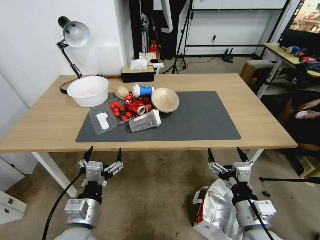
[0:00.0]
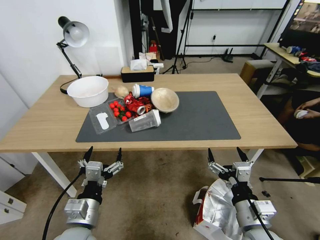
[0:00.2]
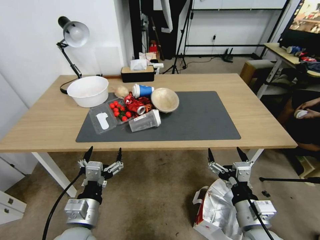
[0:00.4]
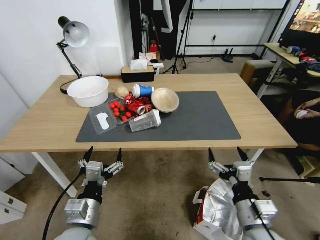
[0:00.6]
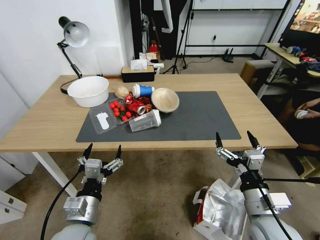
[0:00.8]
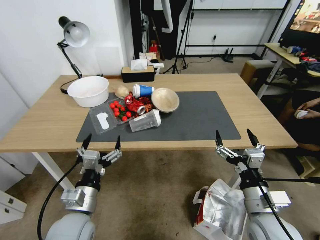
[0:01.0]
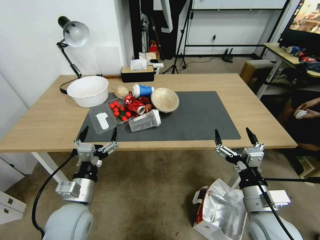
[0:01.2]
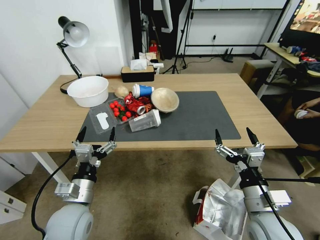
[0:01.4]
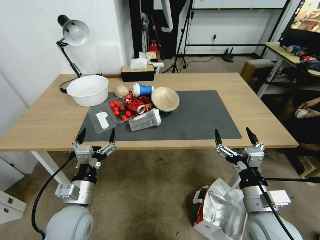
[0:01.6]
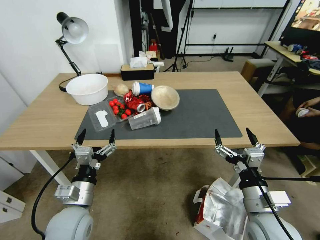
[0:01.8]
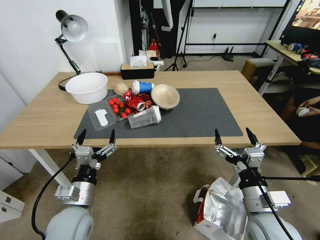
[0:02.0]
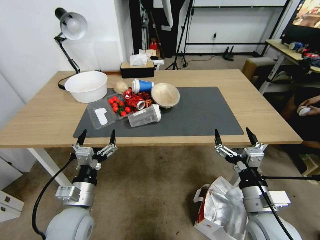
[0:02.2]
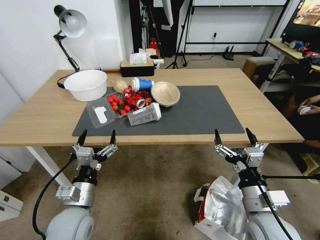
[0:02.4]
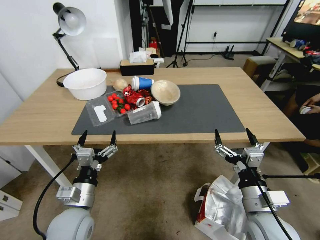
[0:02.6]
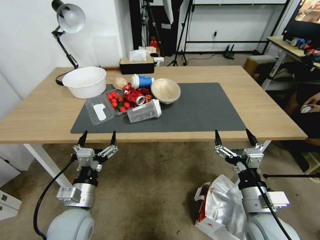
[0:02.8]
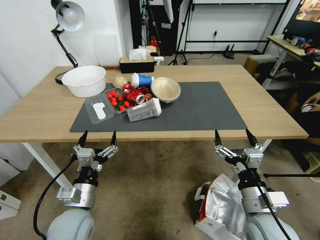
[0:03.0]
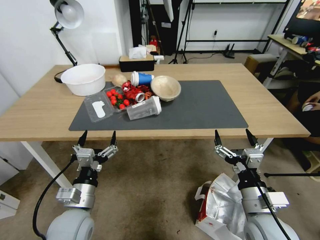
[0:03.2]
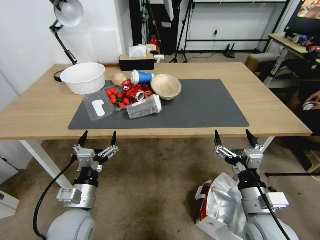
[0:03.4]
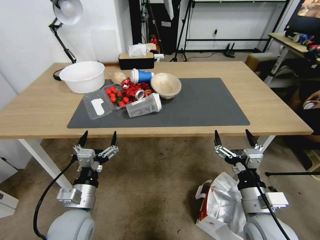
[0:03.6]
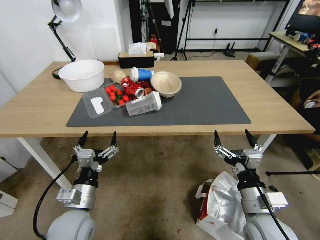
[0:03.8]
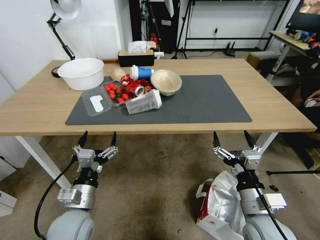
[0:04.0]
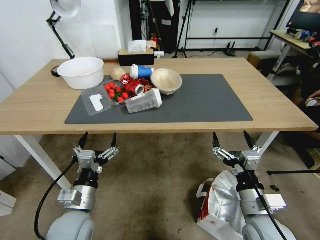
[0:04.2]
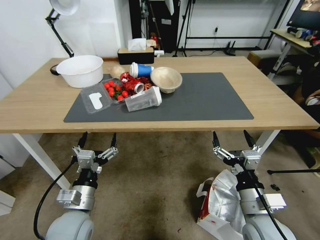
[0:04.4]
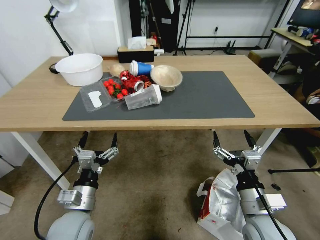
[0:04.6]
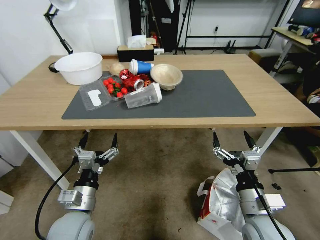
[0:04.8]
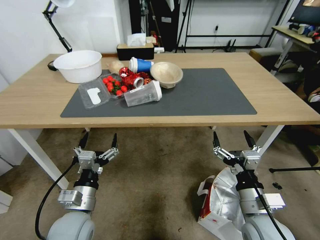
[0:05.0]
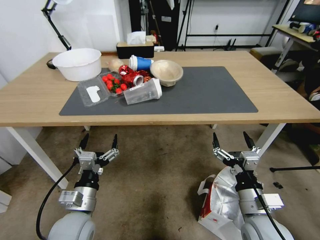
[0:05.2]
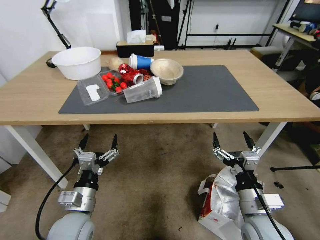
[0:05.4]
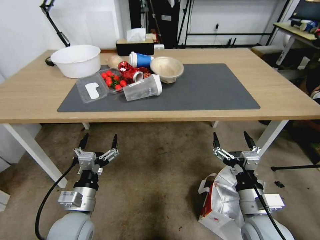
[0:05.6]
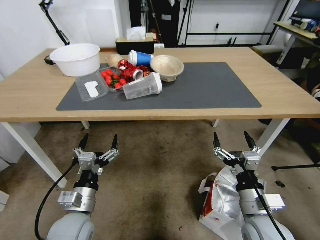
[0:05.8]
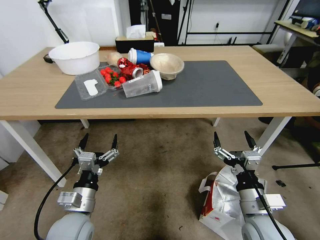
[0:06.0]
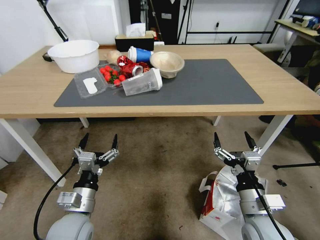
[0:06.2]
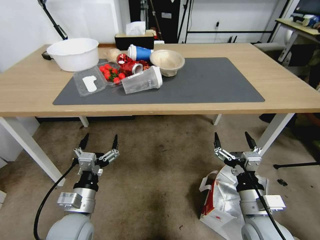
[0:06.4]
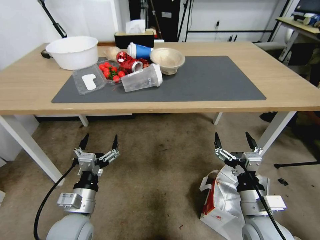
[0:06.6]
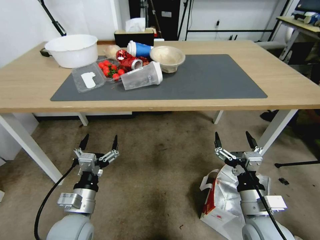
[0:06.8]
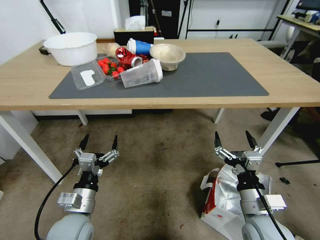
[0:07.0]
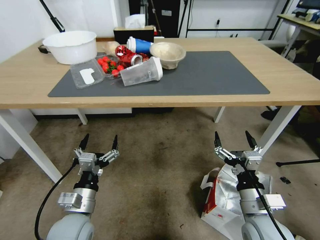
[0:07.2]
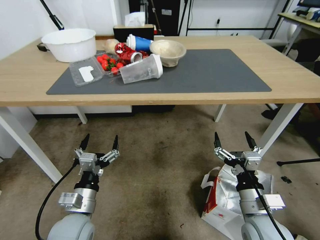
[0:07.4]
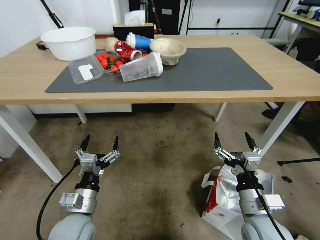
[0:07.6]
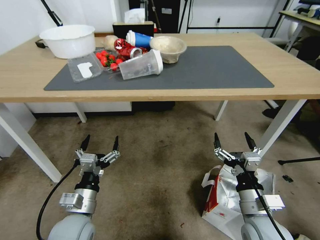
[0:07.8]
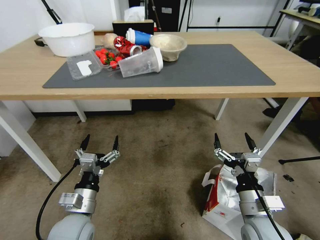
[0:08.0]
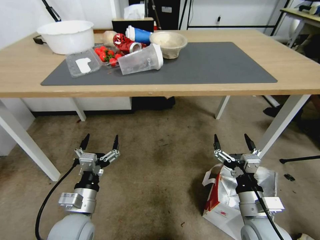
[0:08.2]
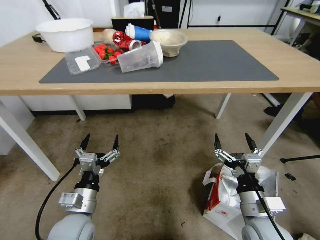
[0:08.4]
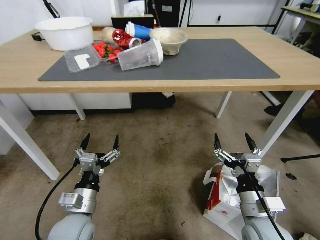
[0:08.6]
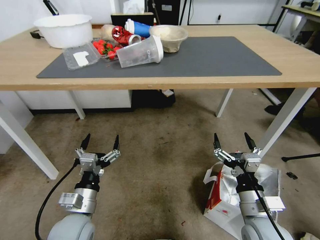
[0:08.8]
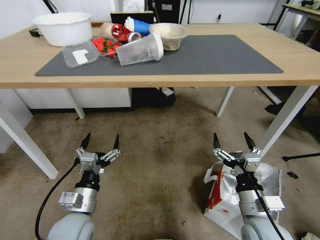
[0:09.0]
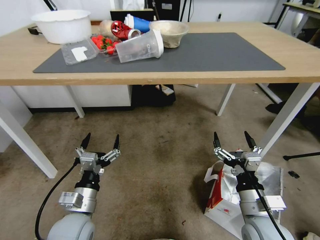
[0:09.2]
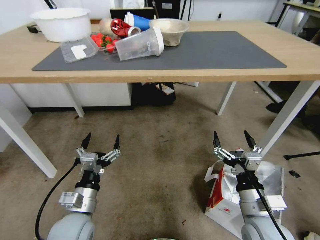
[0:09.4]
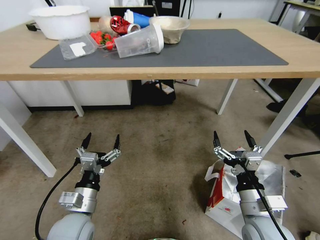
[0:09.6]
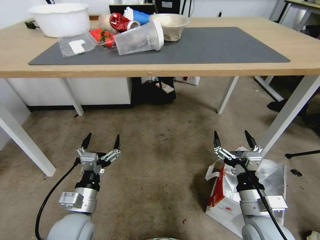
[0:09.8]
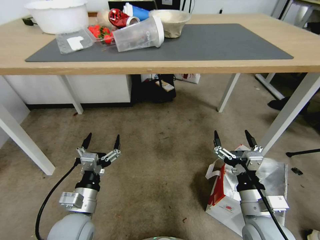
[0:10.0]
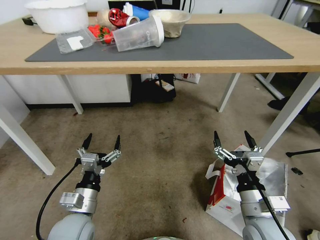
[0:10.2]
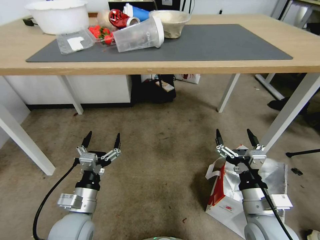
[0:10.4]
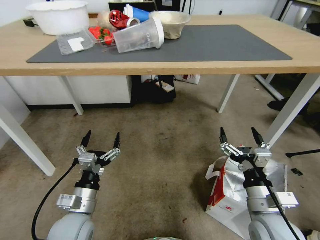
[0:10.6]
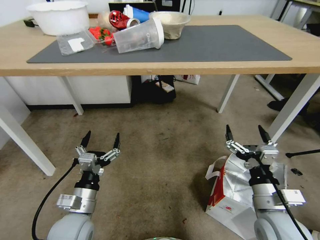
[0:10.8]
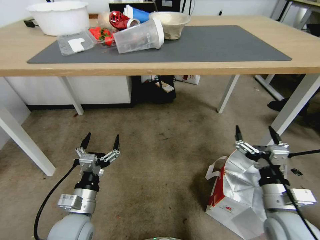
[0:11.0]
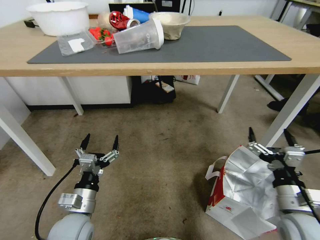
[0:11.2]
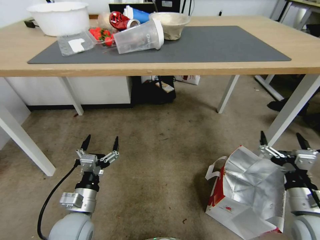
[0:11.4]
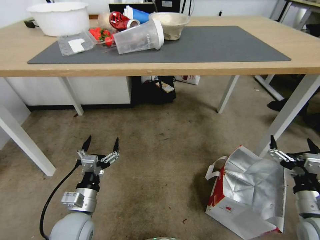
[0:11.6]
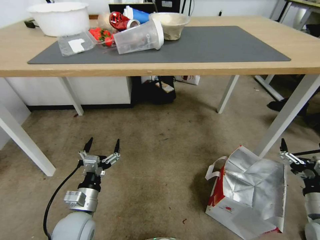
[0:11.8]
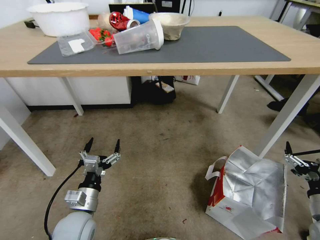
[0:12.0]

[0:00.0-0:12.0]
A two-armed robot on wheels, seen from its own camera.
Task of the whole recording: Pick up the food delivery bag from the floor and place it on the table.
0:10.4 to 0:12.0: The right gripper is displaced to the right by about 20 cm.

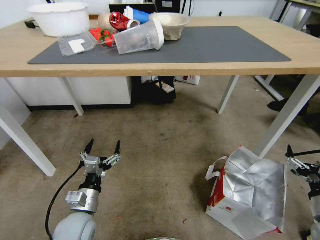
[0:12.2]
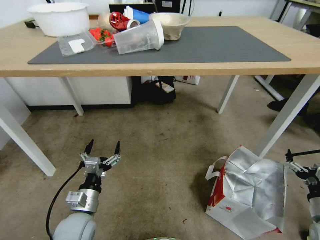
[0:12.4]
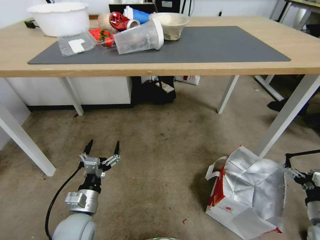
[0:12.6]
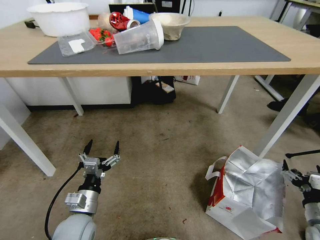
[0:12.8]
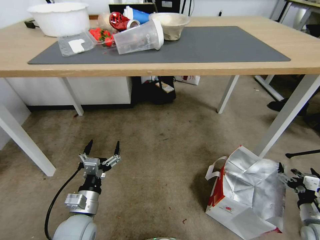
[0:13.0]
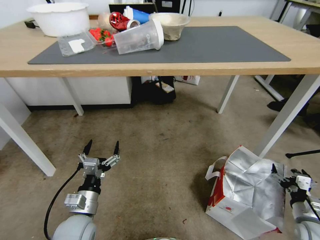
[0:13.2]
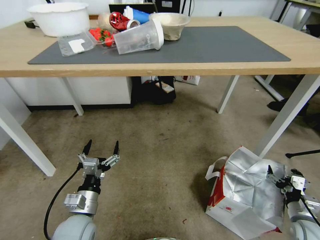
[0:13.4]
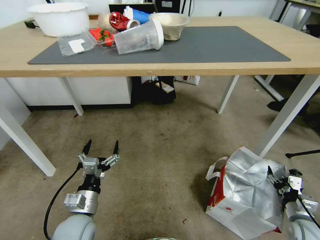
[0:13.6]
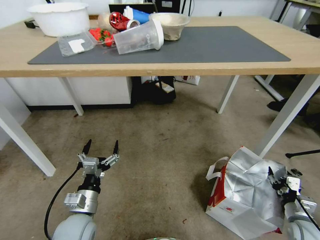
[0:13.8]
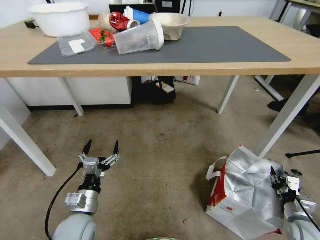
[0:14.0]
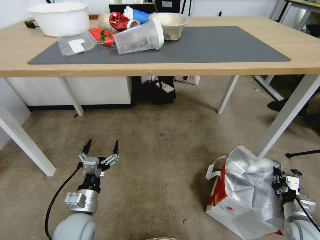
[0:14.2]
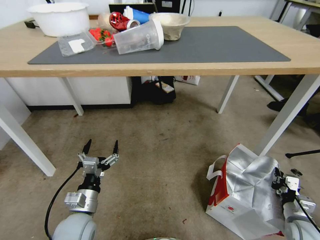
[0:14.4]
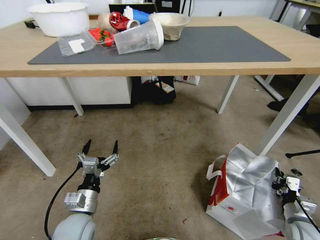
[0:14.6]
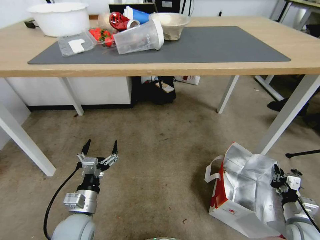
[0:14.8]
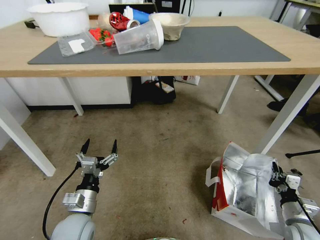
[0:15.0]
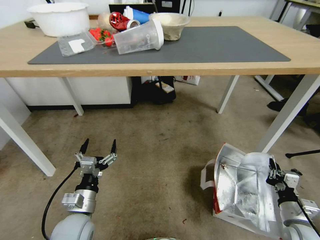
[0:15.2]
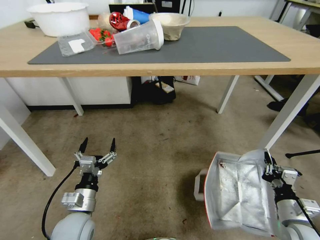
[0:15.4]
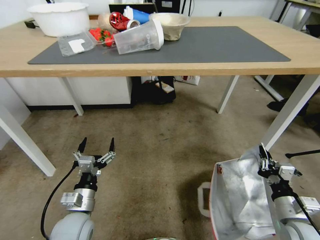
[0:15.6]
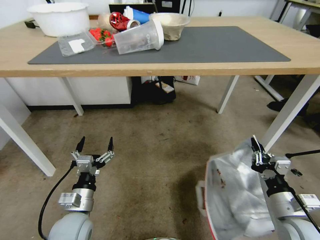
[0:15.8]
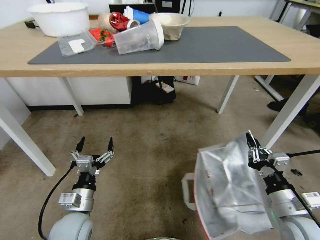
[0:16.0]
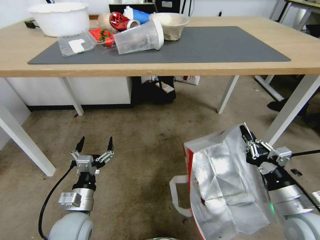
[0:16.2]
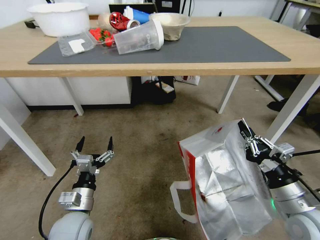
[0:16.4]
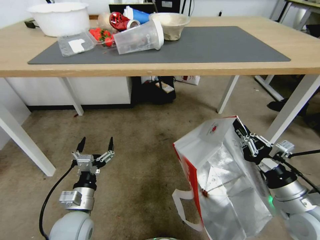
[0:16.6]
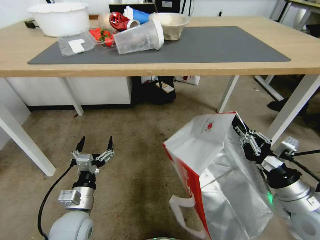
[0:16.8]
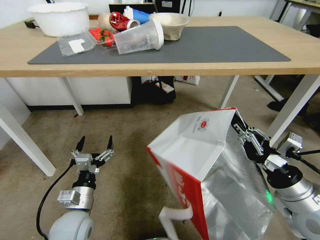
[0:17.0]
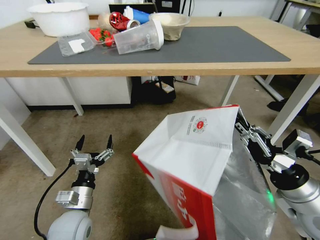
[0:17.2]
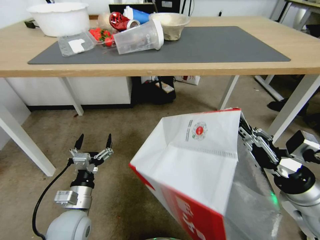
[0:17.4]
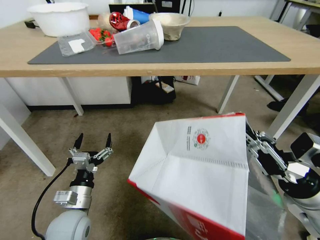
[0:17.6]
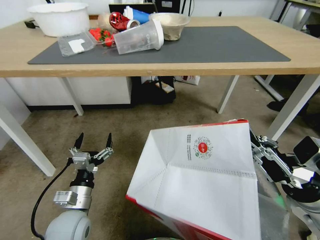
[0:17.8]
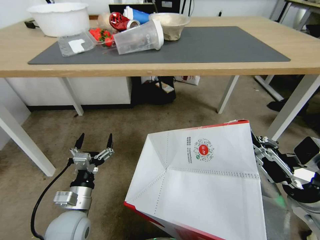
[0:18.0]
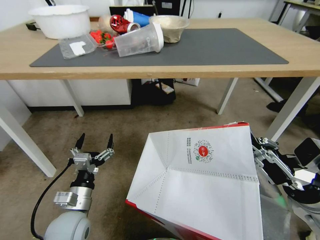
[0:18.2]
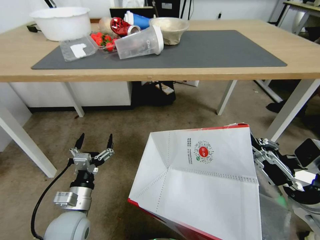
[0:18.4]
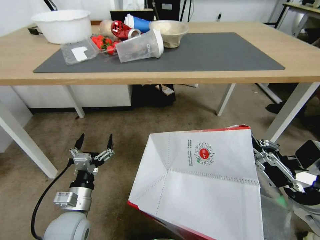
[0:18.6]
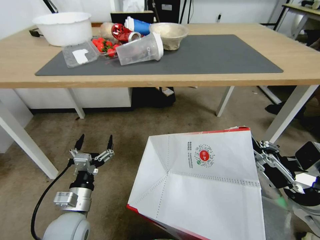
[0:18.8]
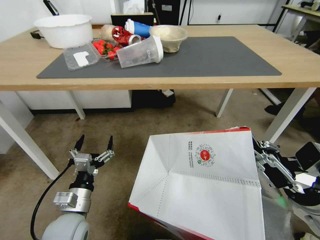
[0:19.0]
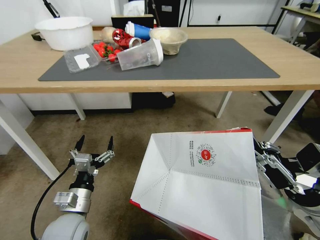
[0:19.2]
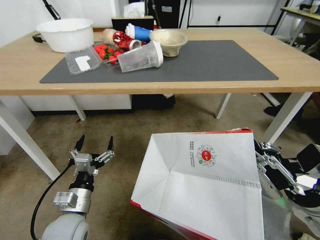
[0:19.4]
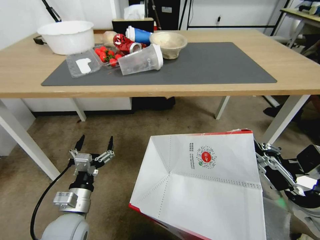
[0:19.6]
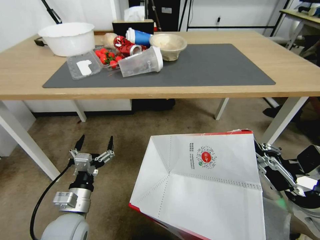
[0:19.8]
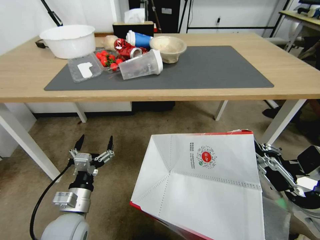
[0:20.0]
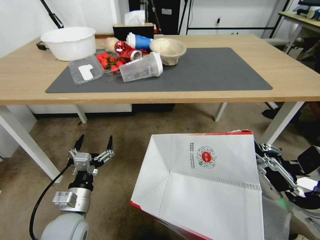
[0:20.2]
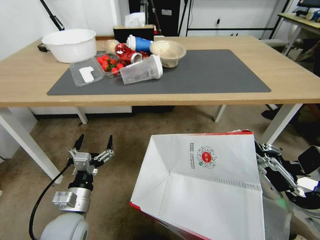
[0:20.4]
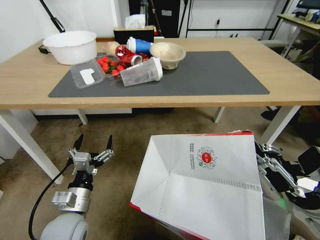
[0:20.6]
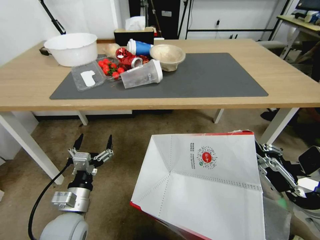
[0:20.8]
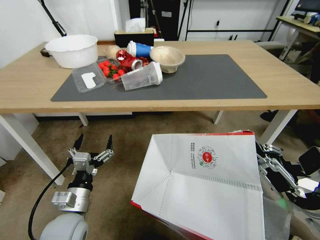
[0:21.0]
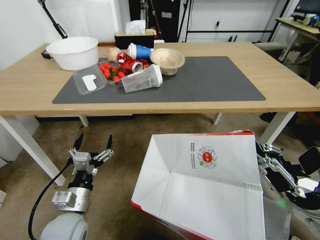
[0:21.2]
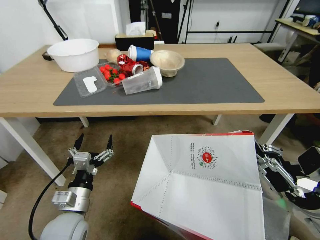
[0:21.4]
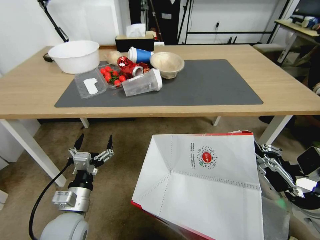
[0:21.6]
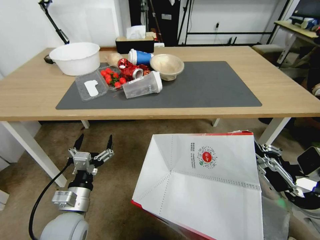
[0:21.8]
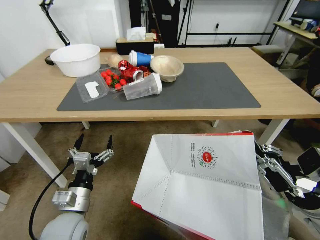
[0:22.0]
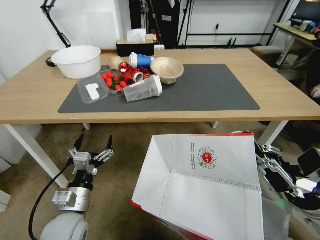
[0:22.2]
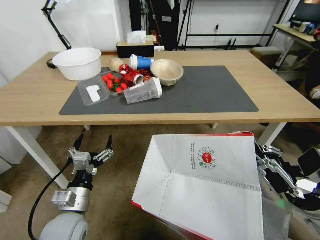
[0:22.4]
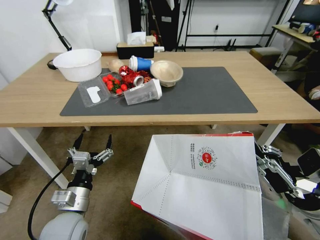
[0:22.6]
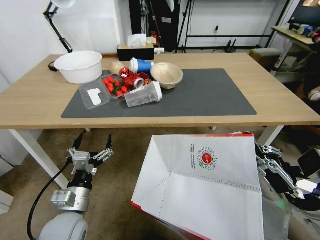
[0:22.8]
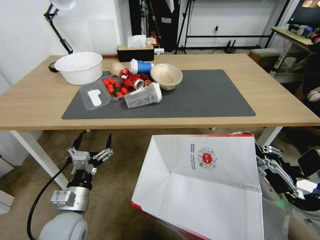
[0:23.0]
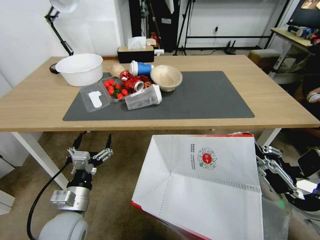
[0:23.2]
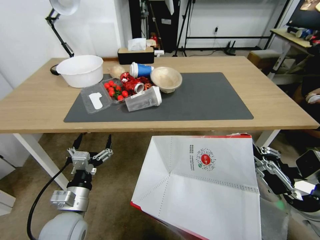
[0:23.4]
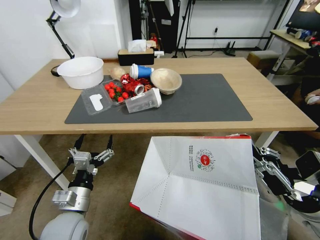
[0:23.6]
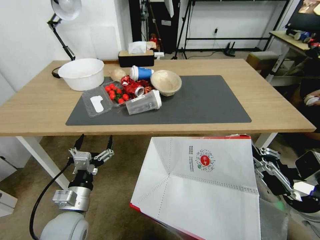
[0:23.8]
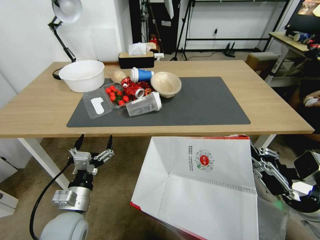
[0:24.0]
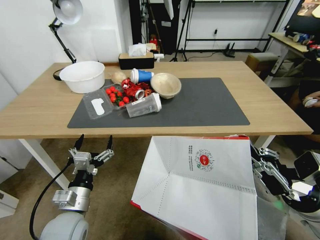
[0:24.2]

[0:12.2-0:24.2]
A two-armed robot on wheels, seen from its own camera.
Task of the whole recording: Pick up the food delivery bag from the floor and place it on the table.
0:12.2 to 0:13.8: The right gripper heads downward, covering about 10 cm, and closes its fingers.
0:13.8 to 0:15.2: The right gripper changes place by some 5 cm, and closes.
0:15.2 to 0:16.6: The right gripper heads upward and to the left, covering about 15 cm.
0:16.6 to 0:18.2: The right gripper moves upward, roughly 5 cm.
